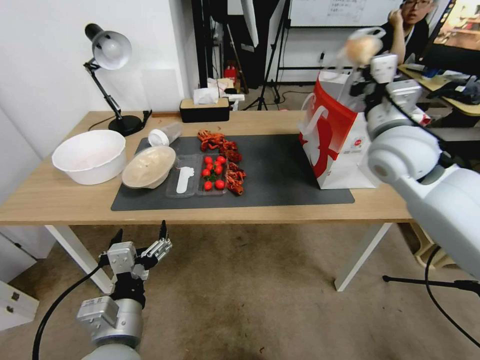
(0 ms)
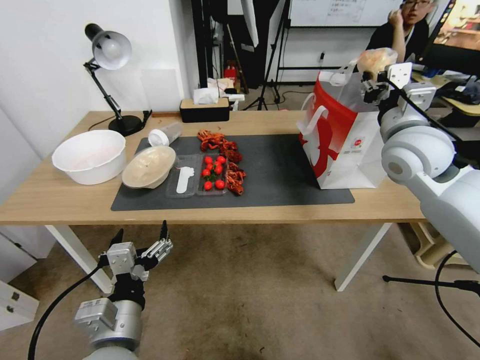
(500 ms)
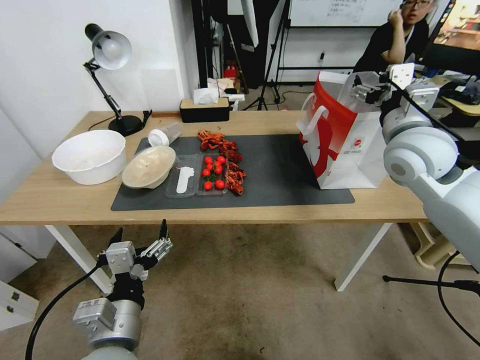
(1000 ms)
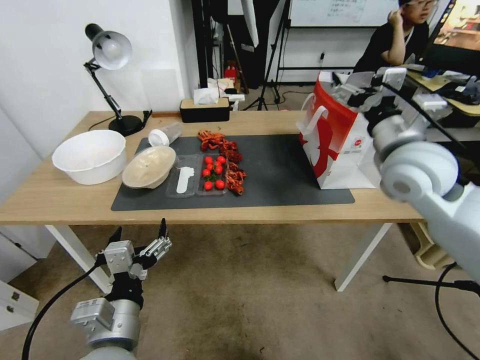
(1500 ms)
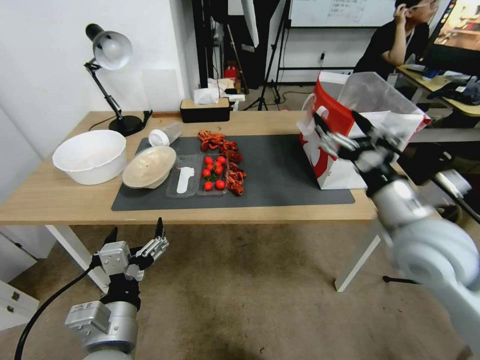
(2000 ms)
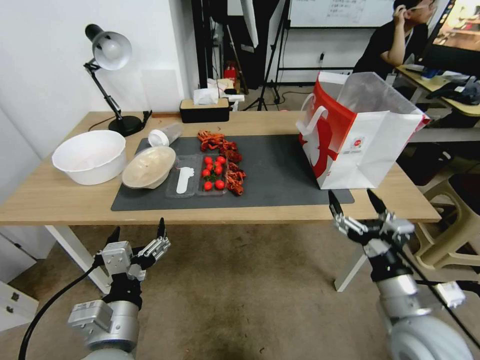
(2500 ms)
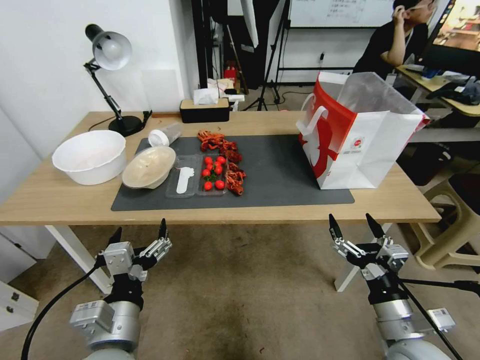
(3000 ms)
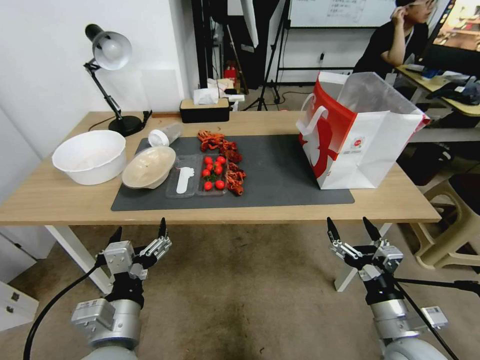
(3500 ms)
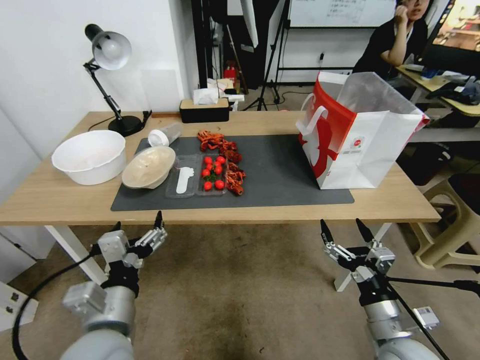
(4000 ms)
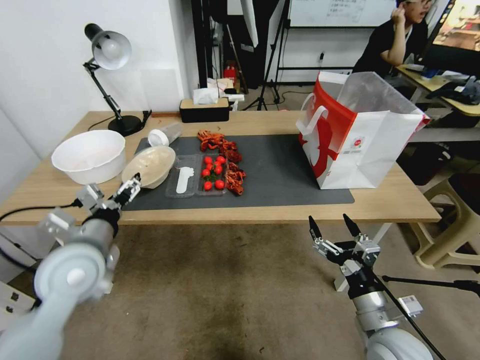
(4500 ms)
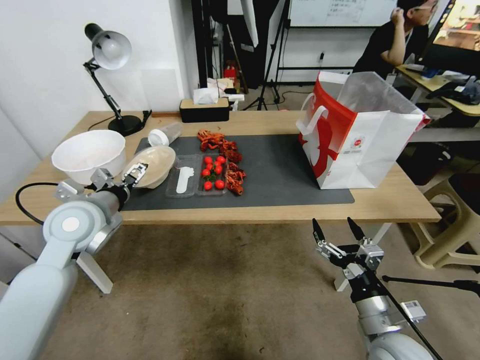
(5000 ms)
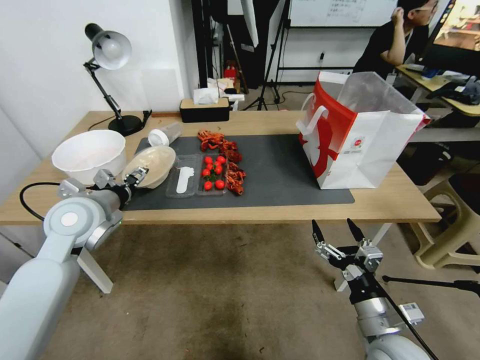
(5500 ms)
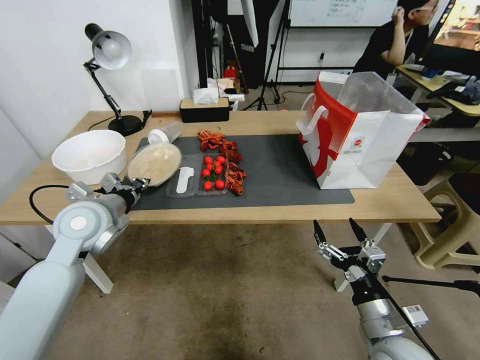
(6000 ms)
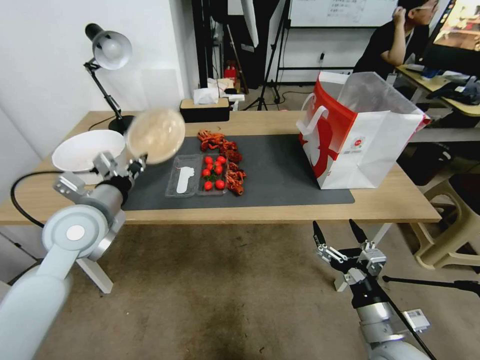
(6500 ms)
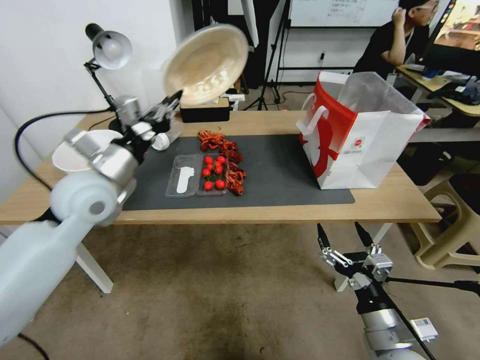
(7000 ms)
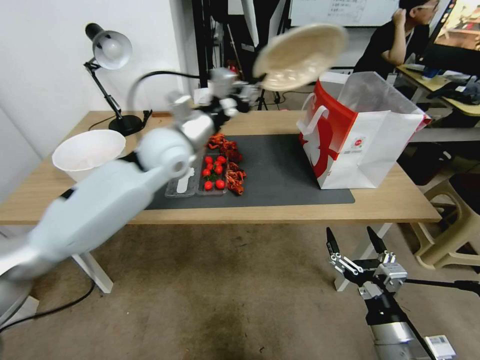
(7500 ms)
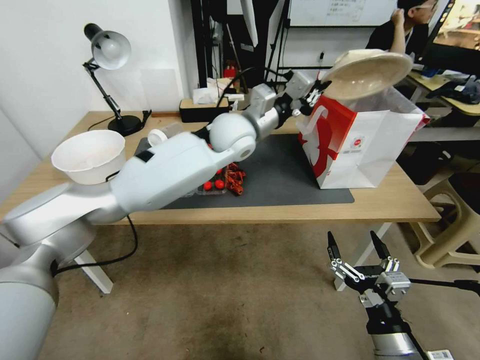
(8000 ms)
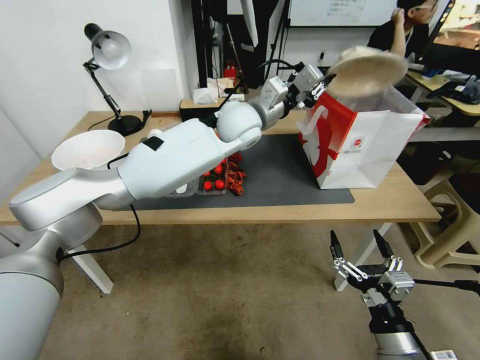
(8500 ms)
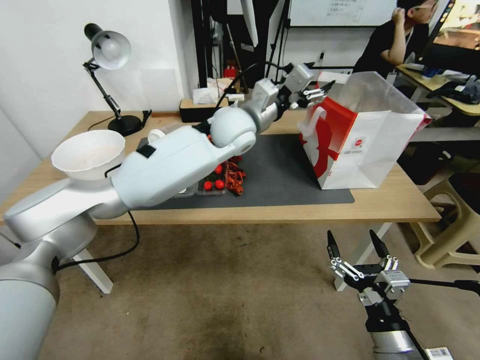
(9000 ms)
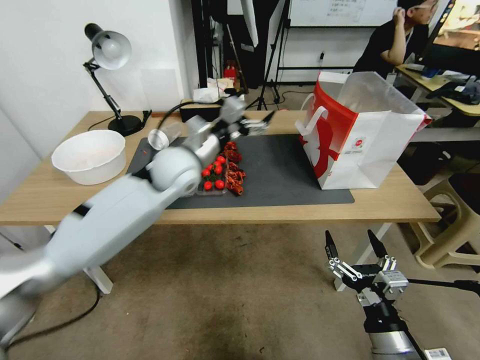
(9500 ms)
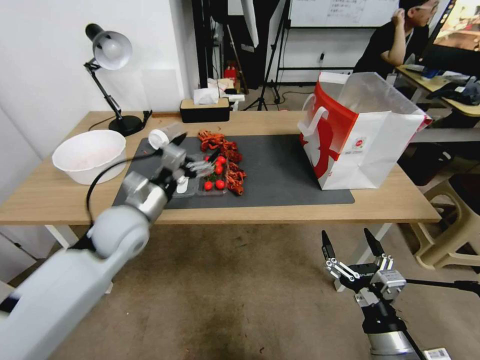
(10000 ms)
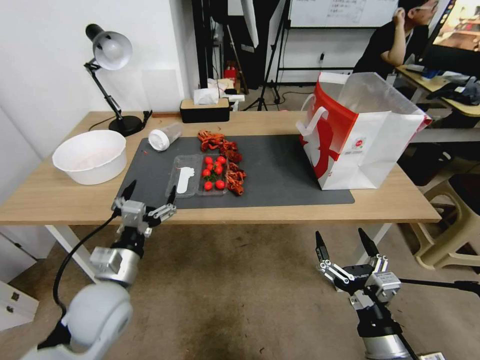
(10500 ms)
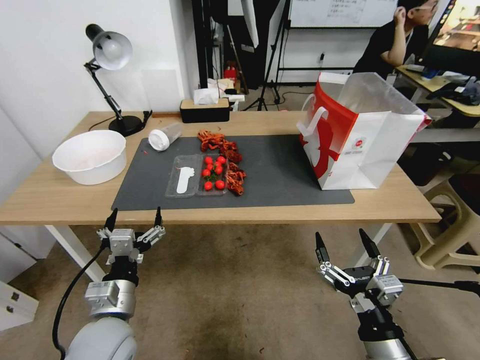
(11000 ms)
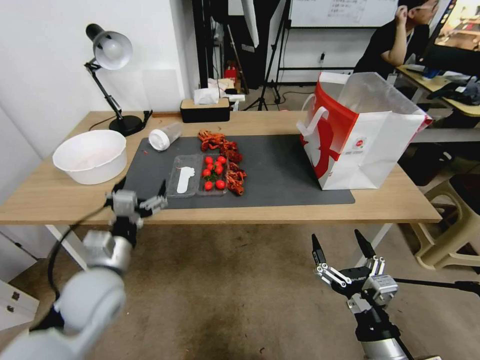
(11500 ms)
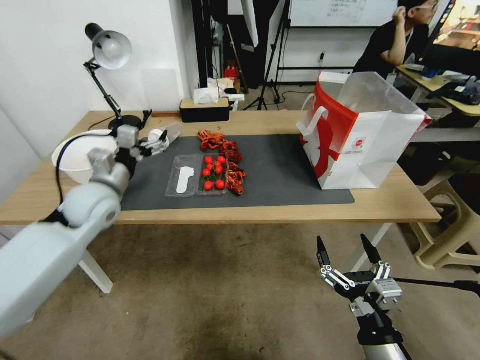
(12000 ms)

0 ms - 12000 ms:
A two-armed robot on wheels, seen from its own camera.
0 ms - 2000 ms: The right gripper goes about 10 cm backward and downward, and opens its fingers.
2000 ms - 4000 ms: The right gripper goes about 25 cm downward and backward.
4000 ms - 6000 ms: The left gripper goes some 20 cm forward and to the left, and closes.
6000 ms - 8000 ms: The right gripper shifts about 5 cm backward. The left gripper heads to the right and forward, covering about 30 cm.
8000 ms - 10000 ms: The left gripper shifts approximately 30 cm to the left, backward and downward, and opens up.
10000 ms - 12000 ms: The left gripper moves to the left, approximately 5 cm, and moves approximately 15 cm backward and comes back.

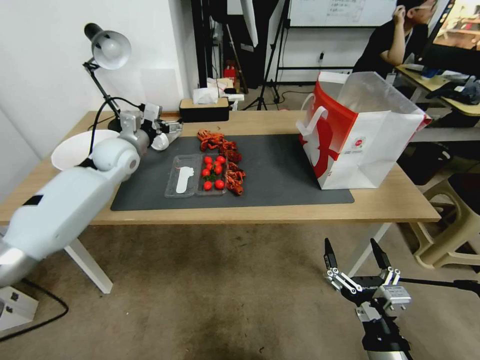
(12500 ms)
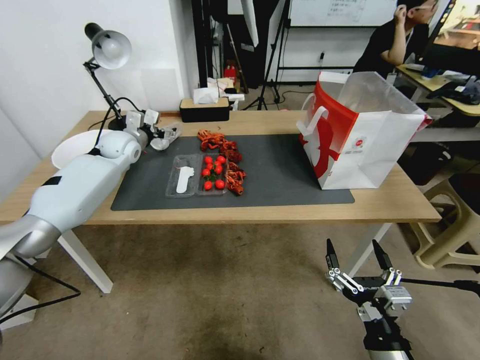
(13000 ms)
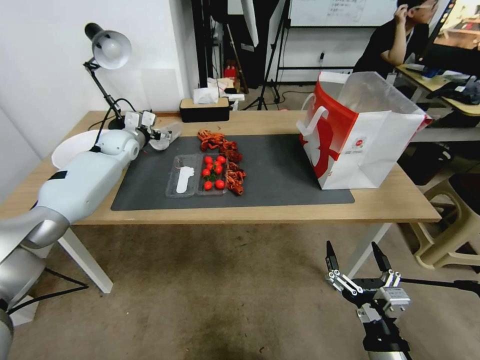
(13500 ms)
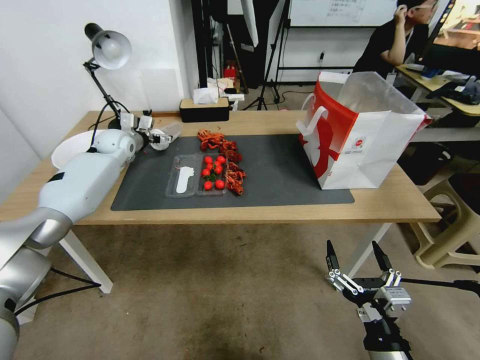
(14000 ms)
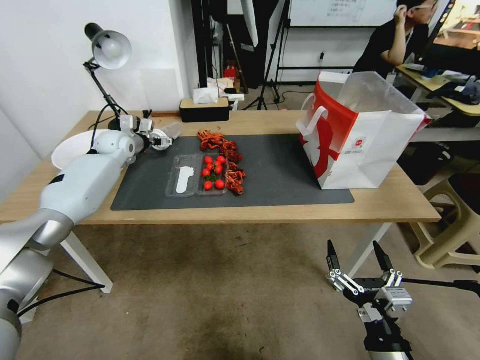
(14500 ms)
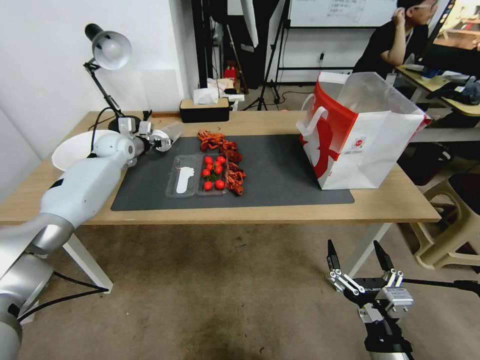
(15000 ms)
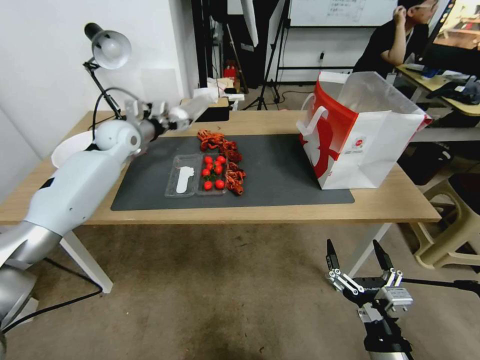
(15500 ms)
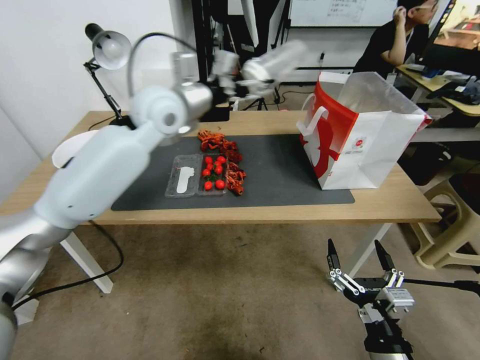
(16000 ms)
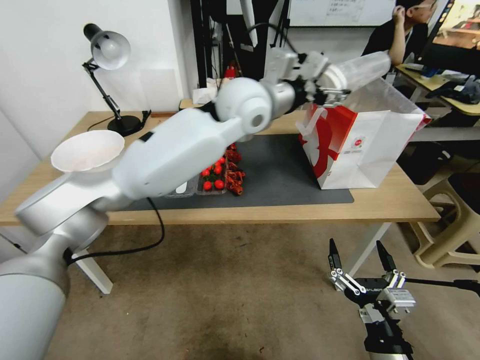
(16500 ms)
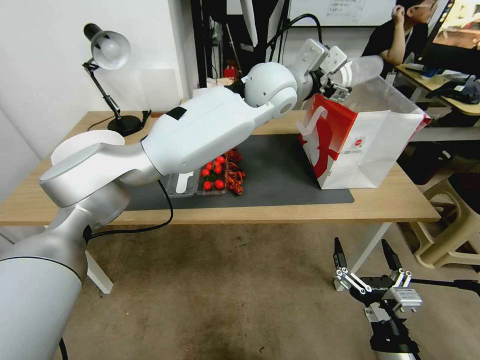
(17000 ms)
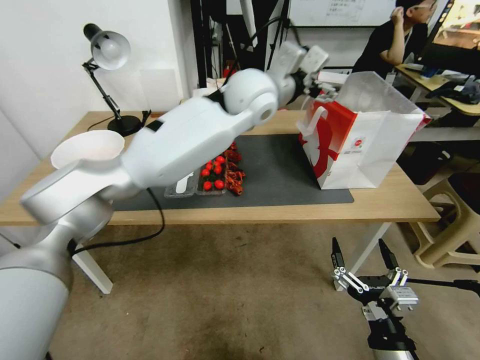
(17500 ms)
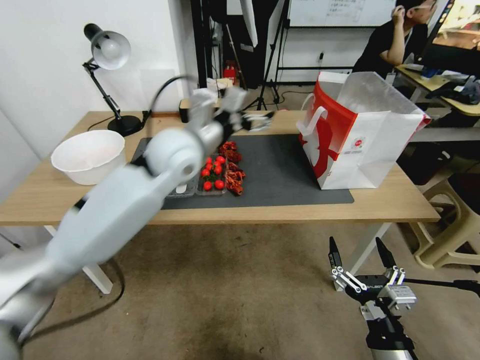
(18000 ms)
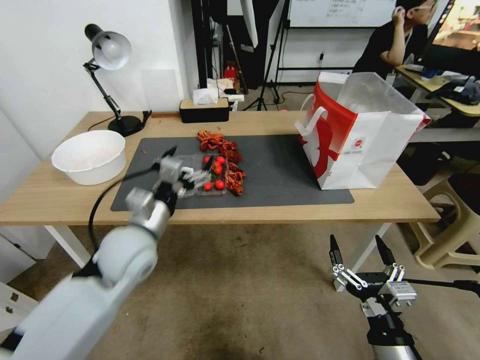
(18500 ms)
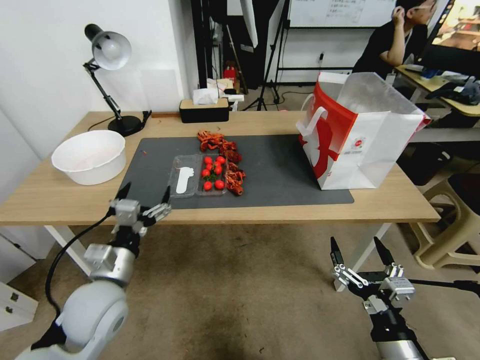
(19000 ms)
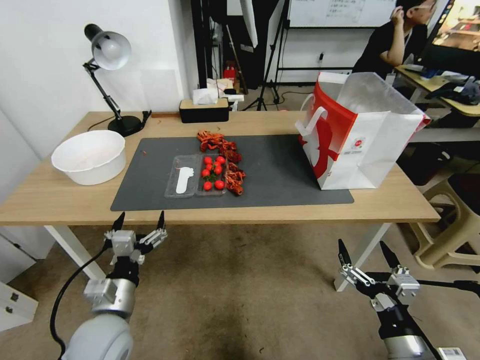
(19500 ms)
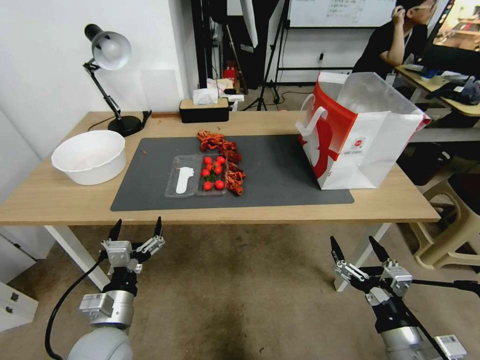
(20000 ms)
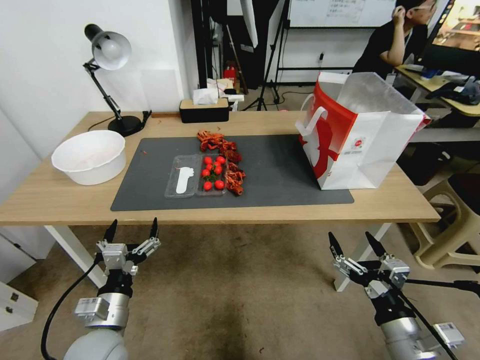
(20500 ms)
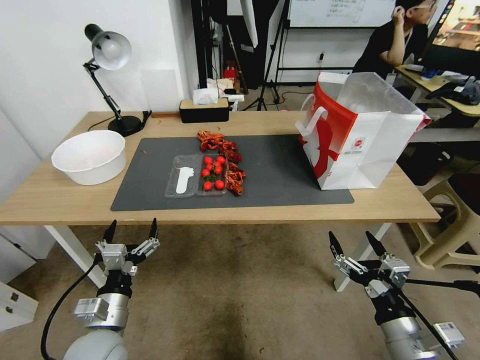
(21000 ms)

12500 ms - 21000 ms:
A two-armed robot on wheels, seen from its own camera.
12500 ms - 14500 ms: The left gripper heads forward and to the left, covering approximately 15 cm.
14500 ms - 16500 ms: The left gripper goes about 40 cm to the right and upward.
16500 ms - 19000 ms: The left gripper shifts roughly 50 cm downward, to the left and backward.
19000 ms - 21000 ms: The left gripper moves downward and backward, approximately 10 cm.

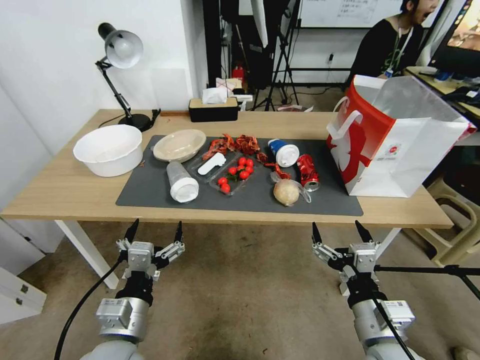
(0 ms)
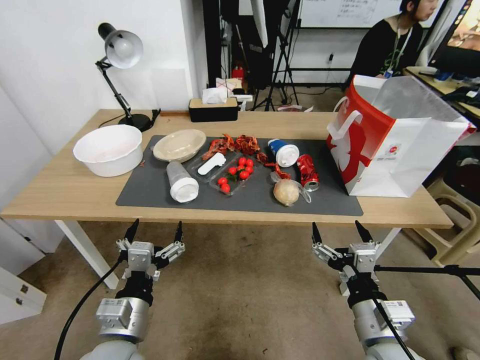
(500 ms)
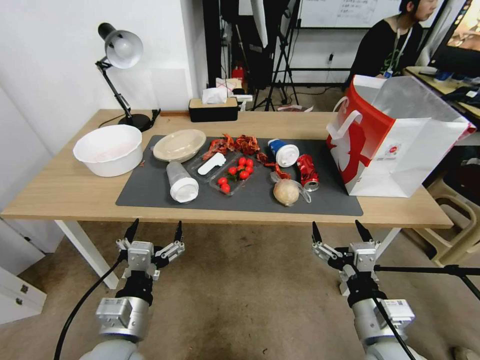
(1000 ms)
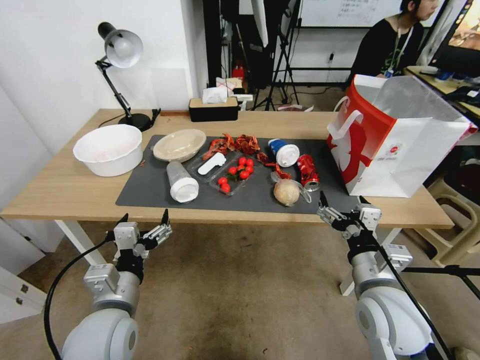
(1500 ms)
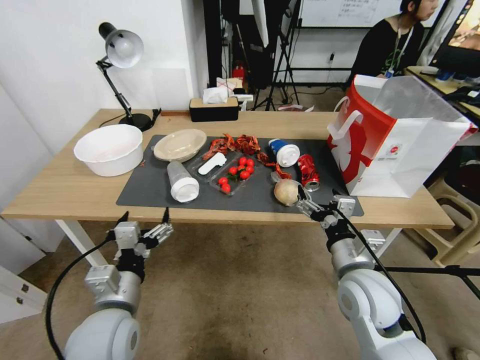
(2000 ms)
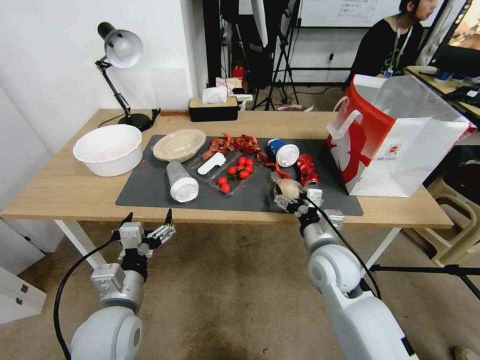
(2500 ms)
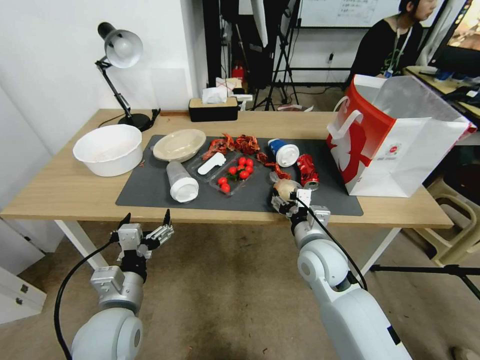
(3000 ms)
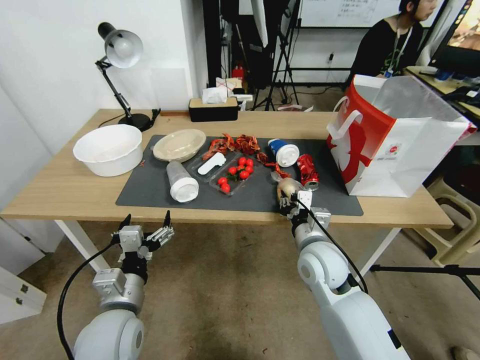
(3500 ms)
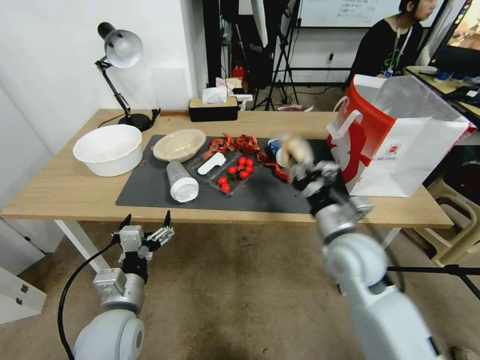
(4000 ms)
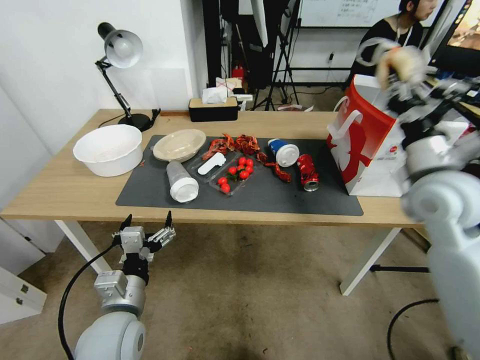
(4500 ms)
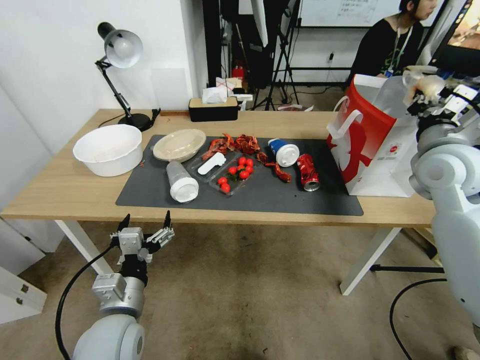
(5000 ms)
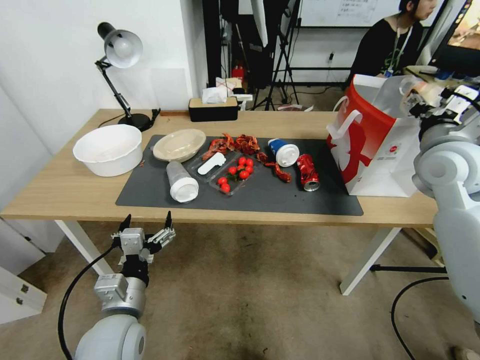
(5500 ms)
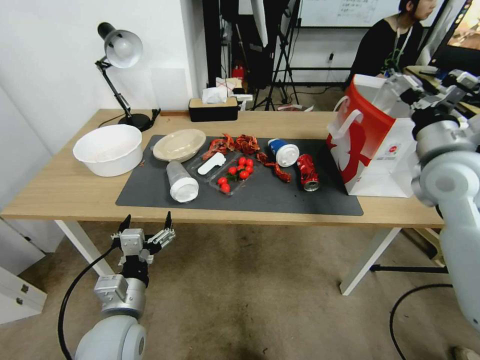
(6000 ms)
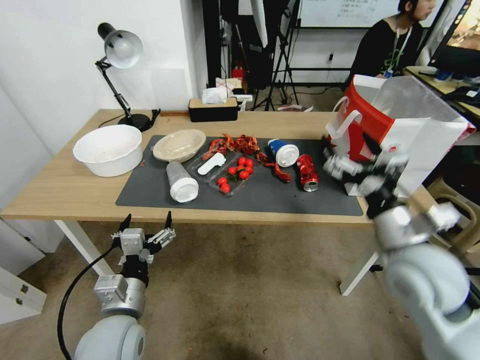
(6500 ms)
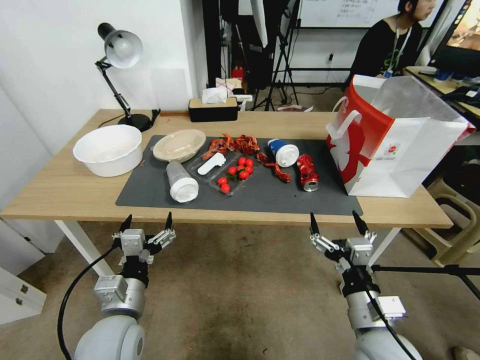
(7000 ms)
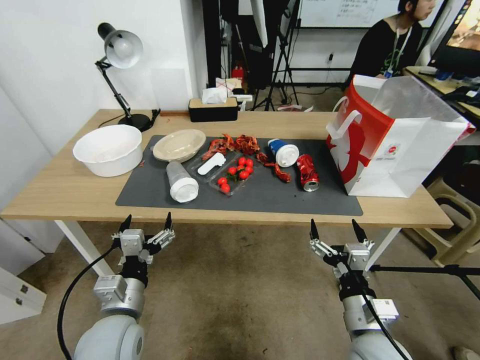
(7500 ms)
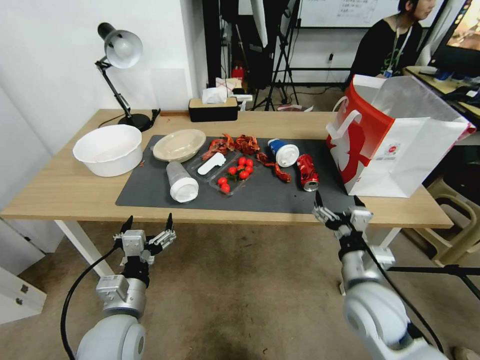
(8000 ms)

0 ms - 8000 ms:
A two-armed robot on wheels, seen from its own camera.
2000 ms - 4000 ms: The right gripper is displaced forward by approximately 5 cm, and closes up.
4000 ms - 6000 ms: The right gripper is displaced upward, to the right and forward by roughly 20 cm, and opens.
6000 ms - 8000 ms: The right gripper travels downward, backward and to the left by approximately 25 cm.
